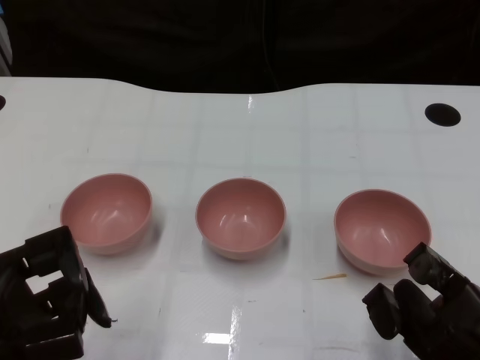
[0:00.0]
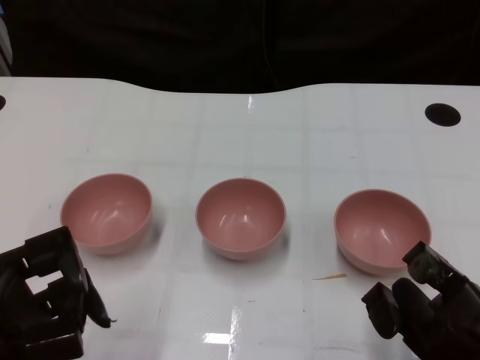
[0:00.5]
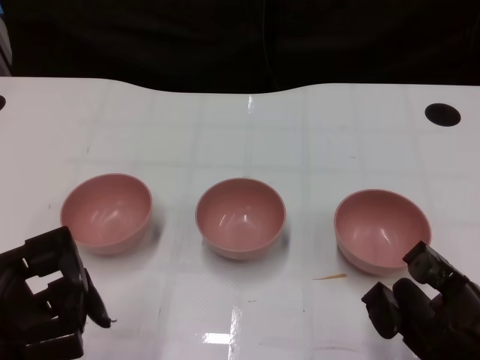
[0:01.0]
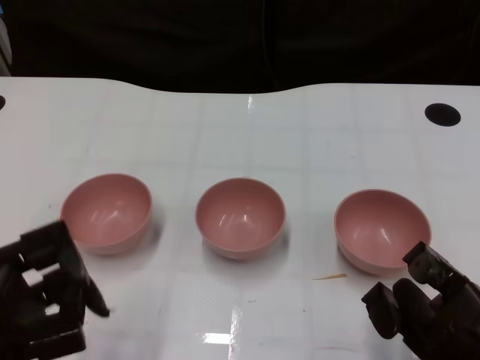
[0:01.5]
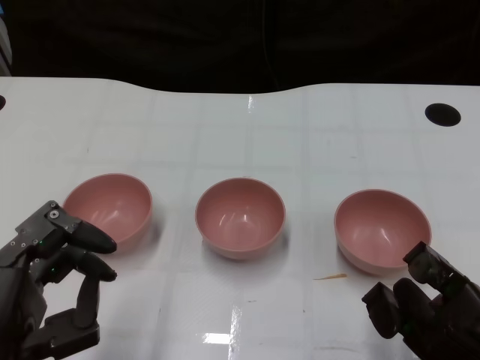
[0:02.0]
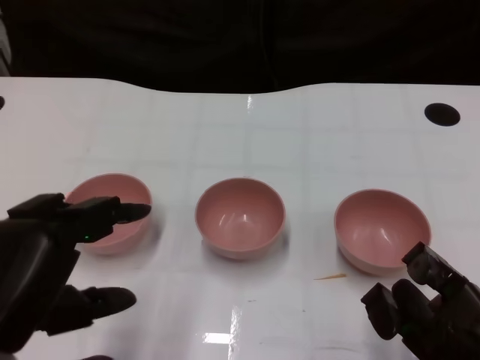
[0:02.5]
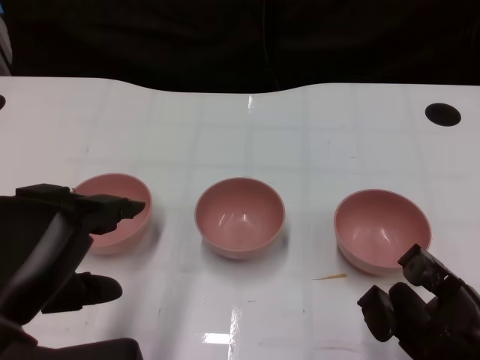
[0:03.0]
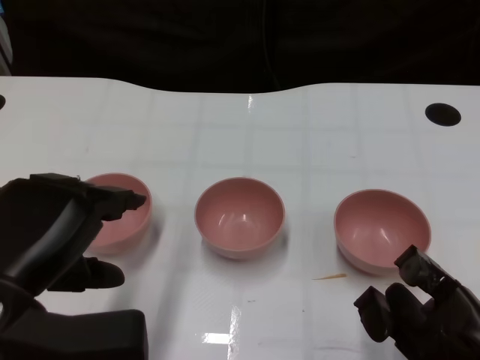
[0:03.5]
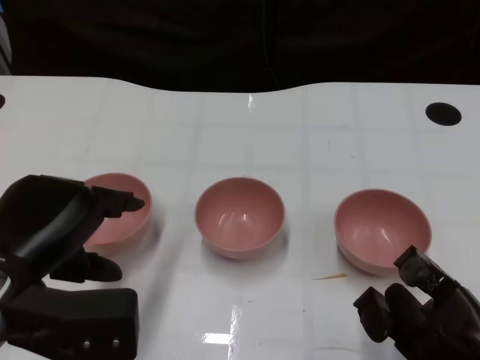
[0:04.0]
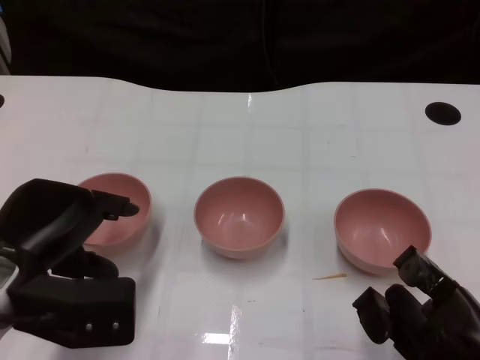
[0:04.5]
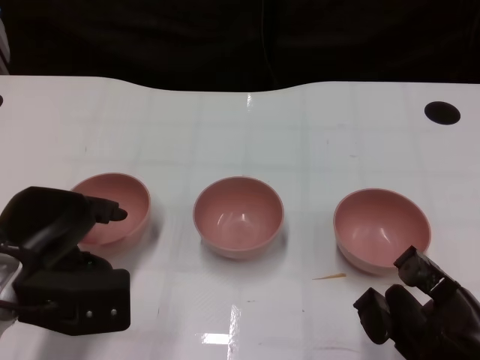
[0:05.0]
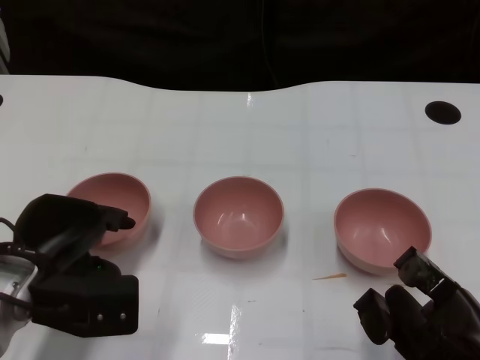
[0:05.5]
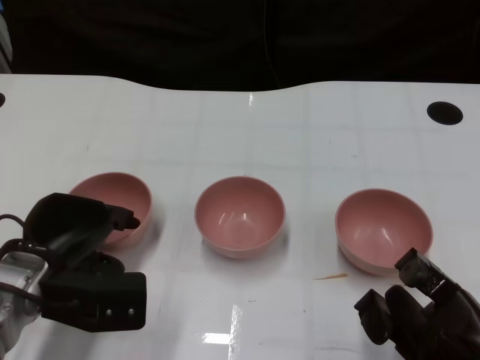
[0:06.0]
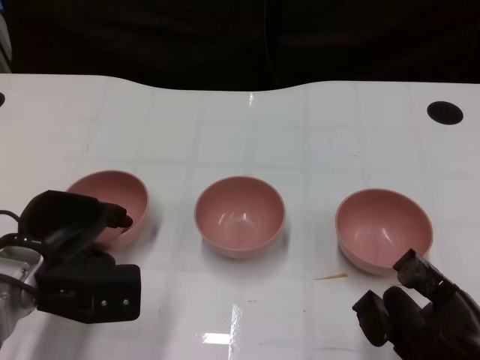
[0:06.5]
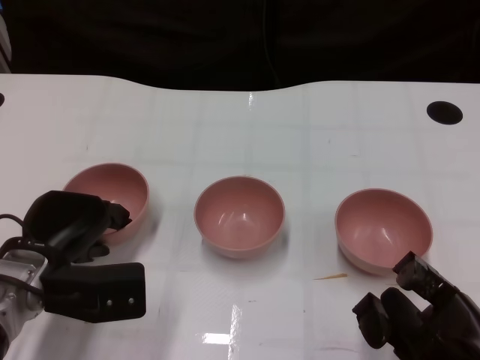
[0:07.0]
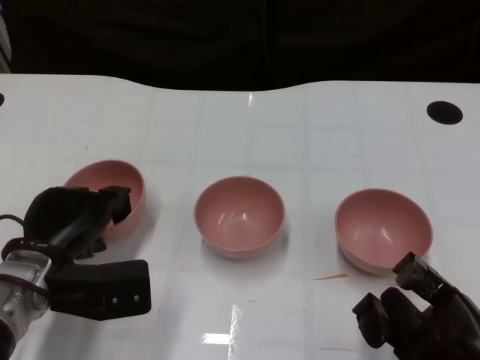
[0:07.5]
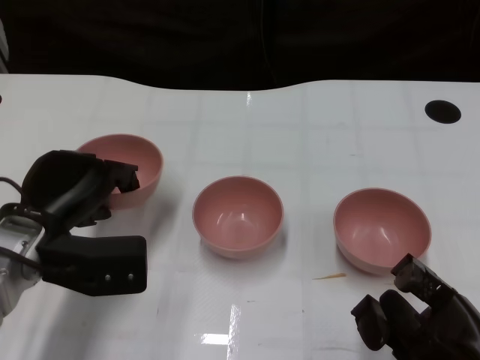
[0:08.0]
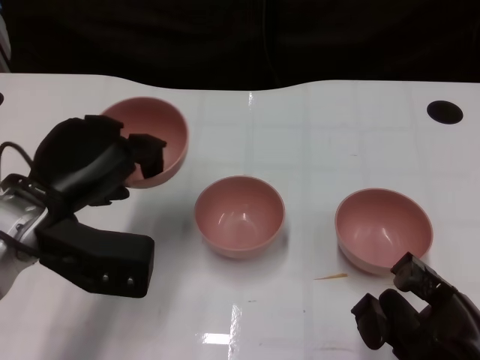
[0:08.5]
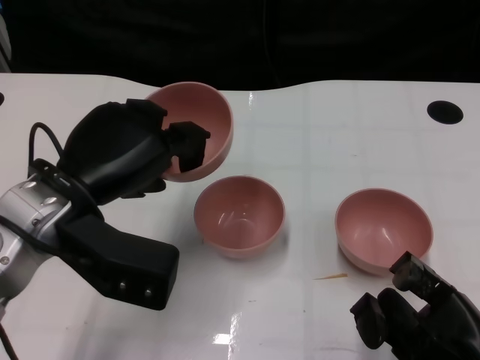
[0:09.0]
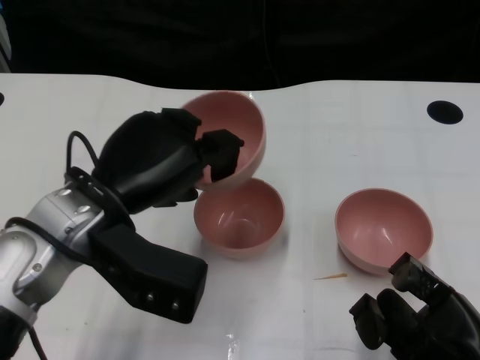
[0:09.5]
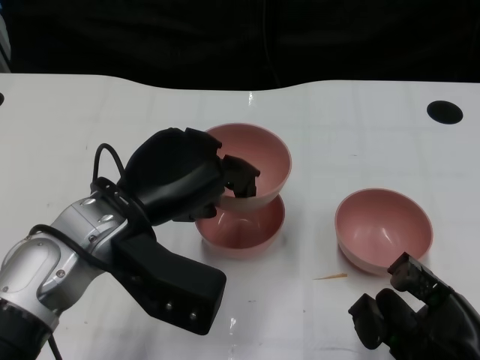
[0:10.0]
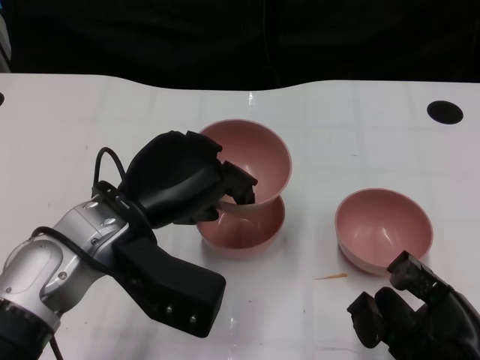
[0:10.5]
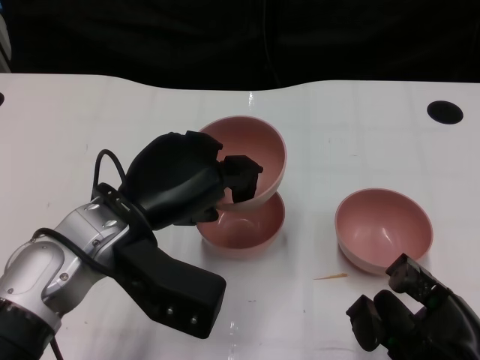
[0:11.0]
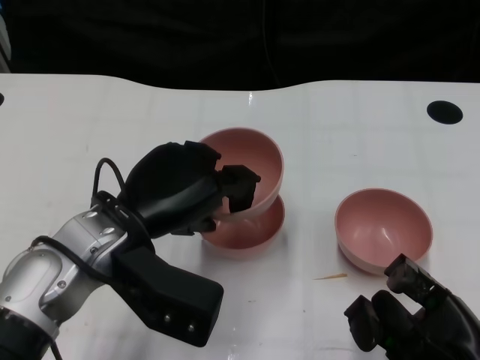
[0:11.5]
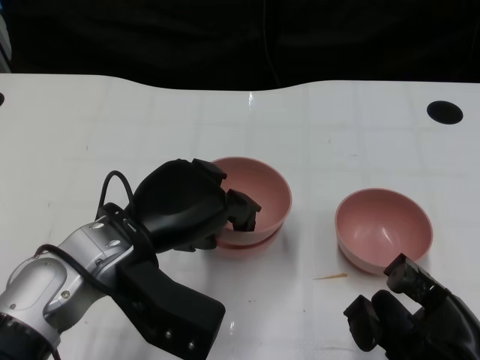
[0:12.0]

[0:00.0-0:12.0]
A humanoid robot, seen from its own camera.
Task of the whole recording: Pick up the bowl on one side of the table and place it on top of the middle bowl, then pick up the bowl on the other side of the table and place it on top of the middle bowls.
Step, 0:01.5 to 0:07.5: Grasp the bowl on the left with the left gripper.
0:02.0 to 0:04.0: The left hand moves forward, about 10 cm.
0:04.0 to 0:06.0: The left hand is displaced downward and forward by approximately 10 cm.
0:06.0 to 0:08.0: The hands stay close to where they were, moving slightly.
0:08.0 to 0:10.0: The left hand shifts roughly 10 cm to the right and upward.
0:10.0 to 0:12.0: The hands stay close to where they were, moving slightly.

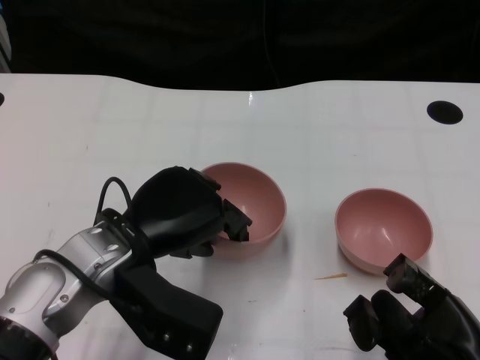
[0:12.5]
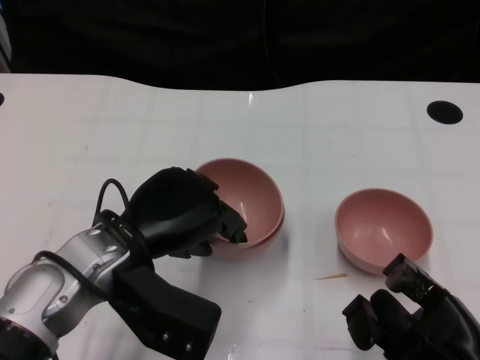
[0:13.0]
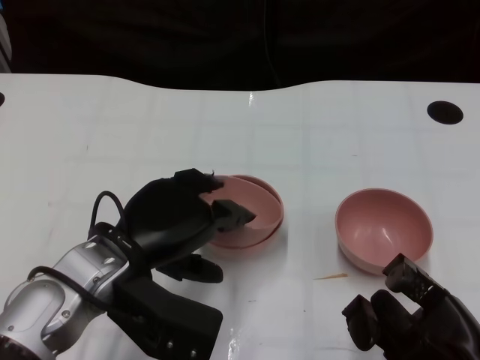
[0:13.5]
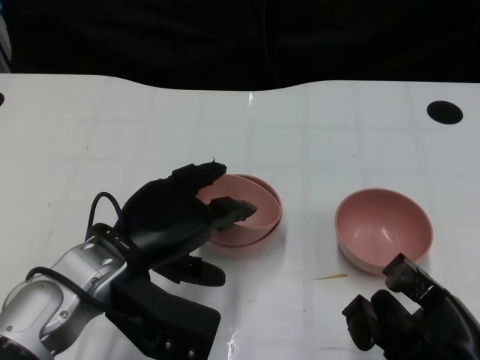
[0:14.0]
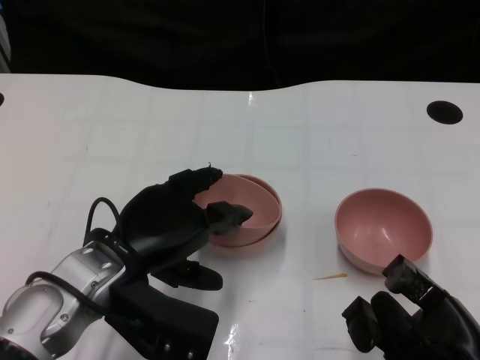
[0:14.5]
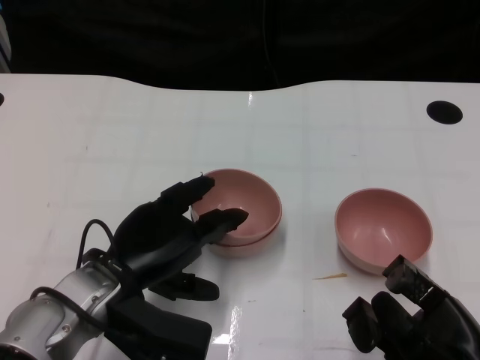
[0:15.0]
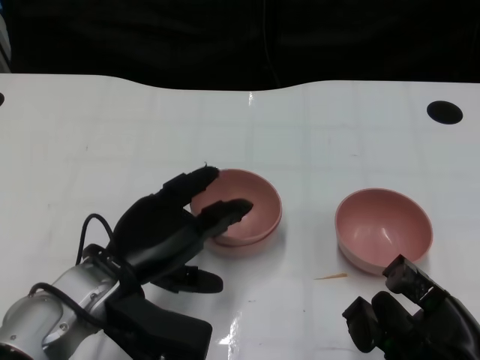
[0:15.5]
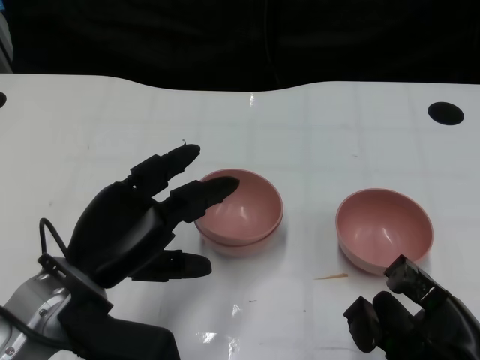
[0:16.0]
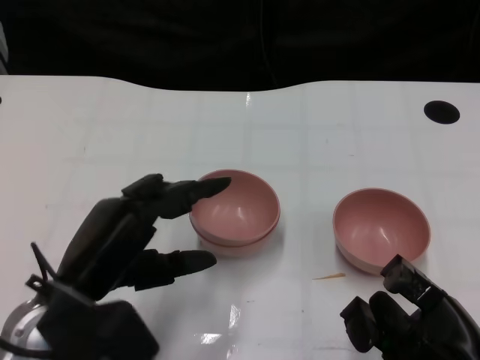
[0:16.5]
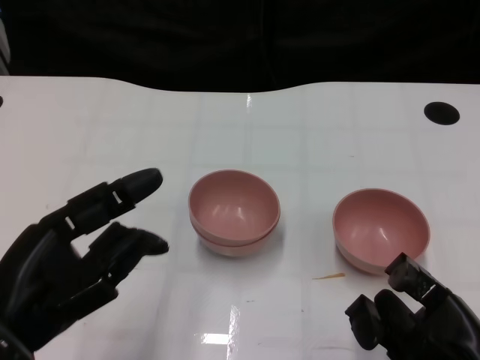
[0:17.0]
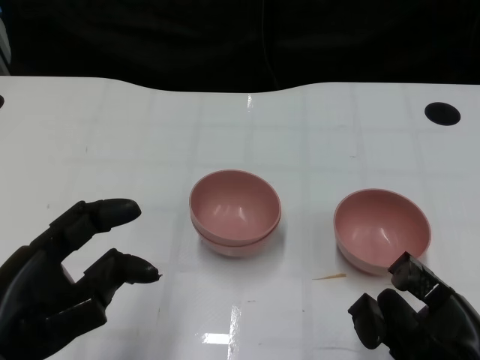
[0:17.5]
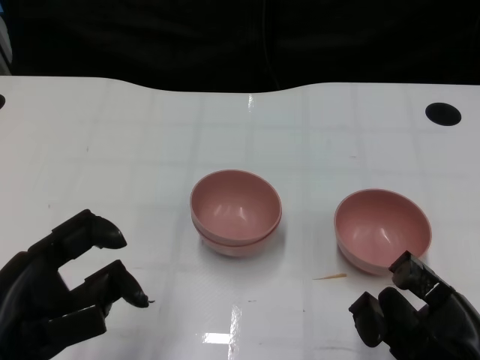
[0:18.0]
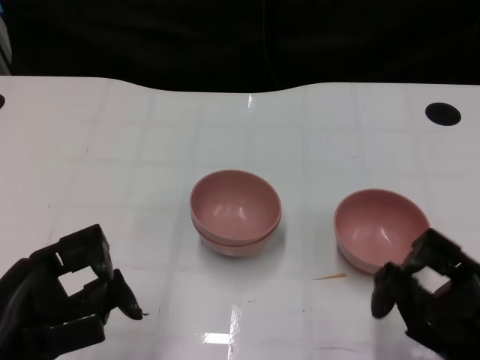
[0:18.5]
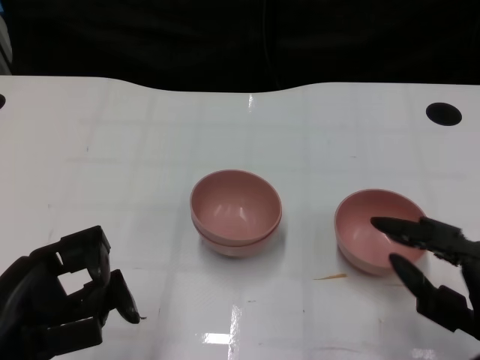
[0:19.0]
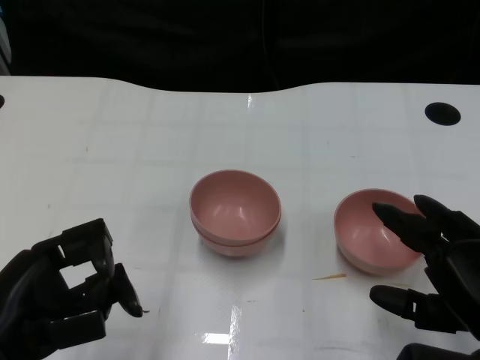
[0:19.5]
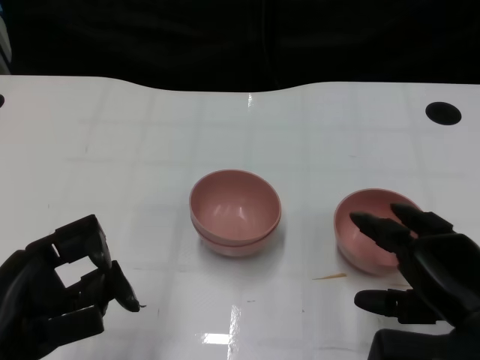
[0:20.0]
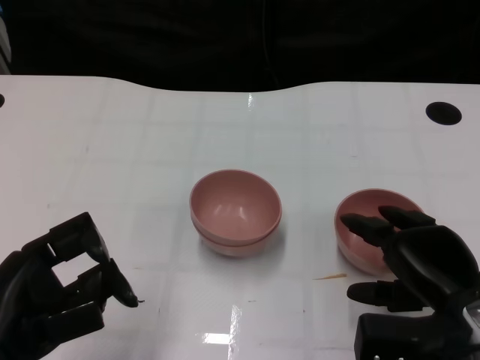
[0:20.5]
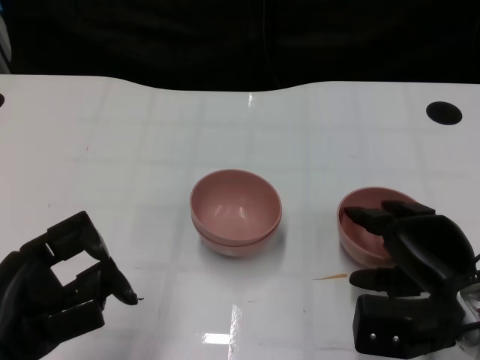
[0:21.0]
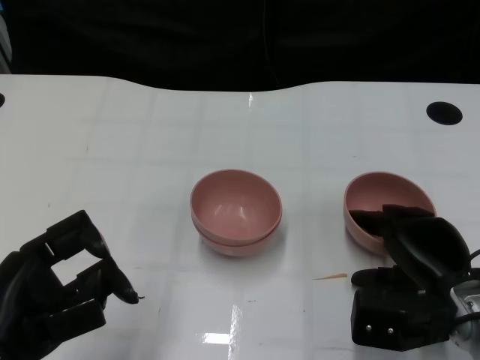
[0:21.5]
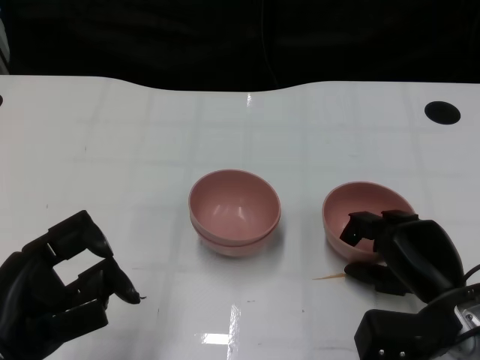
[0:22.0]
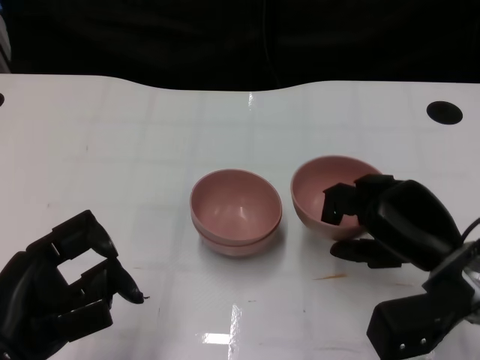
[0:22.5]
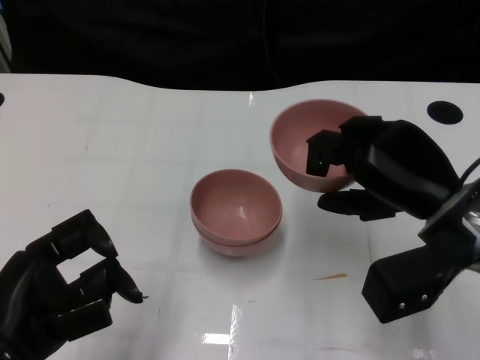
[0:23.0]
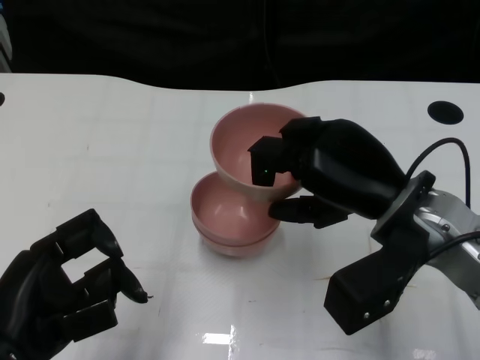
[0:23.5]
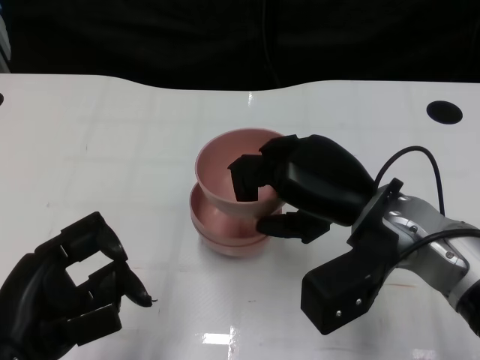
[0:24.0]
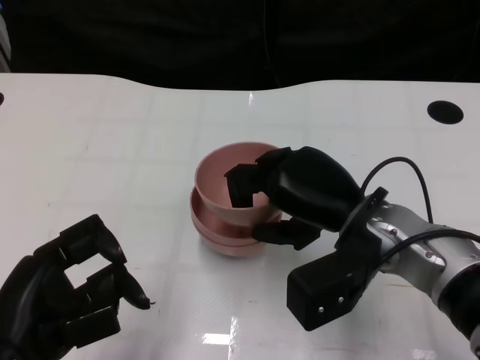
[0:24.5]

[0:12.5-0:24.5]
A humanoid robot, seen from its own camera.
Task of the whole recording: Pick up the bowl on one side of the table and place it on top of the middle bowl, then pick up the bowl on the other side of the table and place it on top of the middle bowls.
Step, 0:12.5 to 0:15.0: Place the bowl on the left onto the bowl in the middle with left gripper.
Step, 0:15.5 to 0:22.0: Grasp the bowl on the right with the right gripper.
0:12.5 to 0:14.5: The hands make only small movements.
0:14.5 to 0:16.5: The left hand changes place by approximately 5 cm.
0:16.5 to 0:18.5: The left hand goes about 10 cm to the left and backward.
0:18.5 to 0:20.5: The right hand shifts some 5 cm forward.
0:22.5 to 0:24.5: The right hand travels to the left by roughly 10 cm.

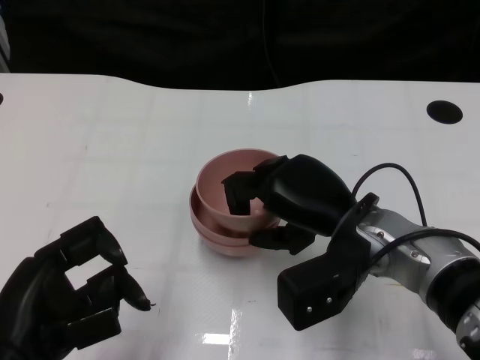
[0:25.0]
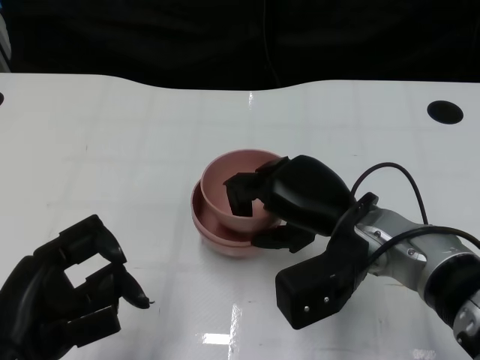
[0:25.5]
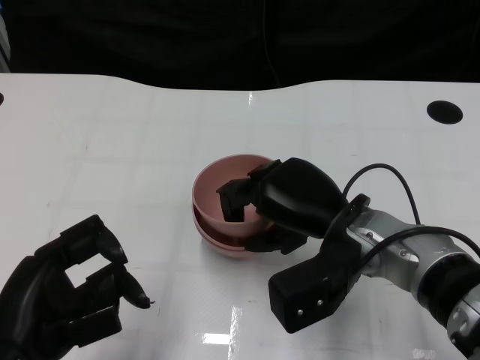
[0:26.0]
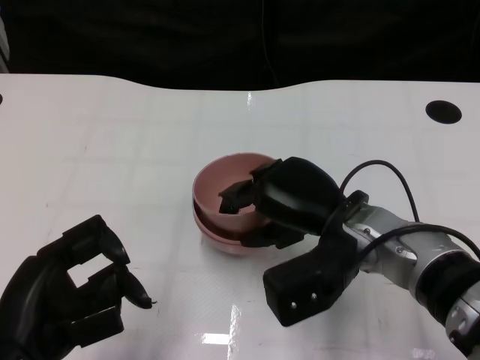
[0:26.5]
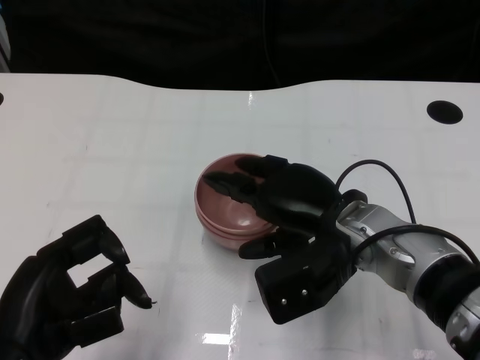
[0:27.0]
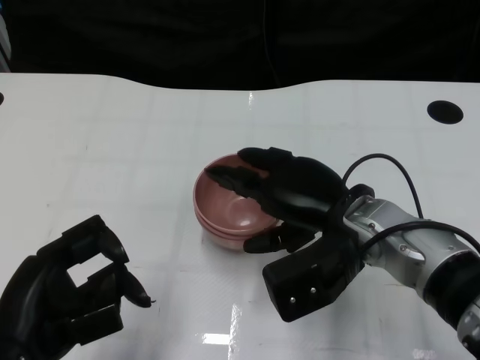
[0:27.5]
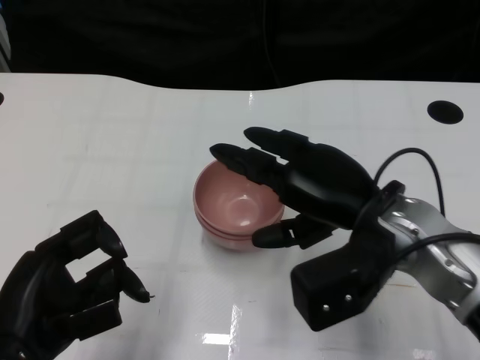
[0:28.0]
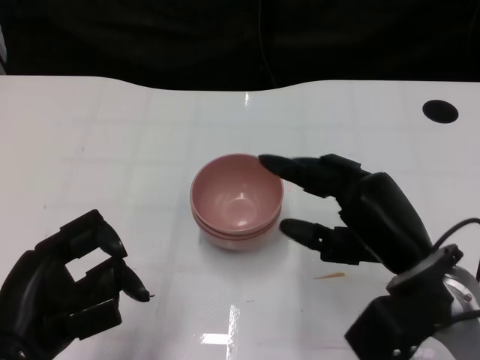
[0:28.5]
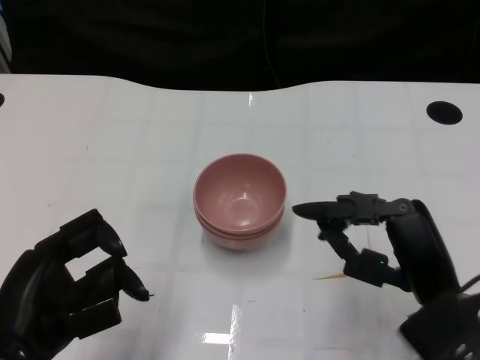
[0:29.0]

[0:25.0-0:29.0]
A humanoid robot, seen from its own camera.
Task of the whole recording: Pick up the bowl on one side of the table and place it on top of the middle bowl, then pick up the bowl on the other side of the table and place it on top of the middle bowls.
Step, 0:25.0 to 0:27.0: Place the bowl on the right onto the bowl in the middle with right gripper.
0:25.0 to 0:27.0: The hands stay close to where they were, moving slightly.
0:27.0 to 0:29.0: The right hand moves backward and to the right, approximately 10 cm.
